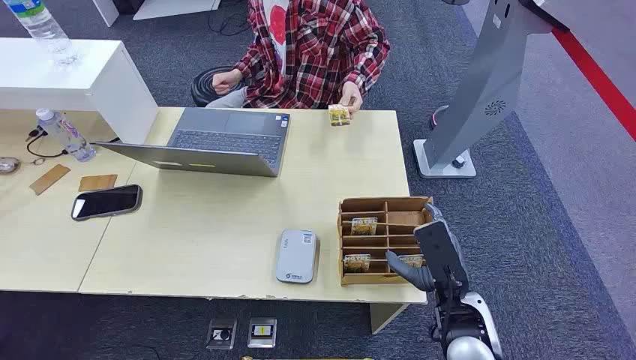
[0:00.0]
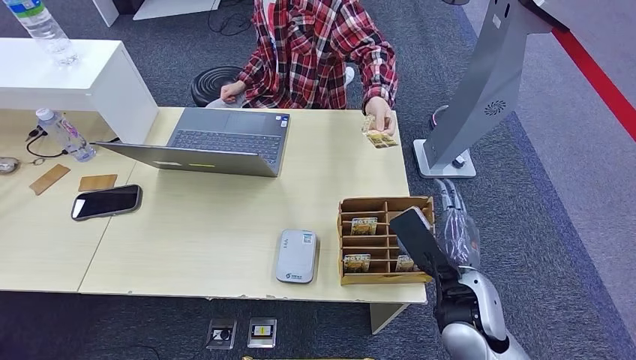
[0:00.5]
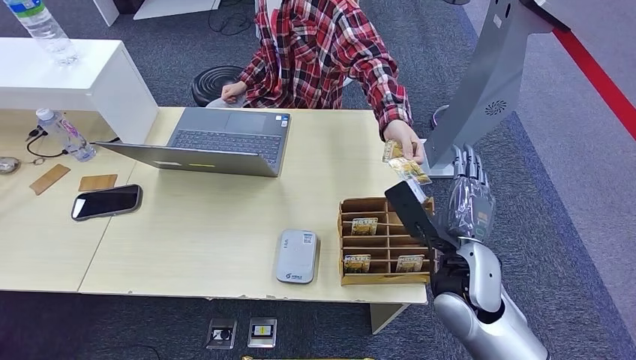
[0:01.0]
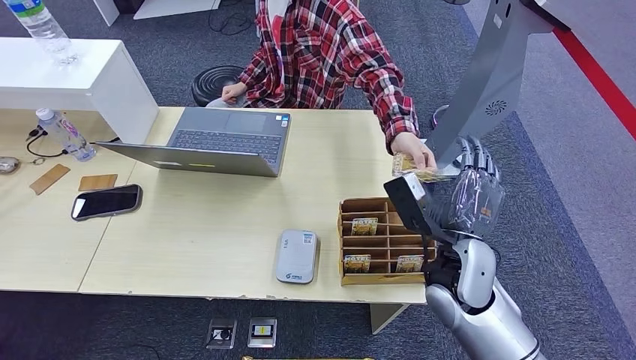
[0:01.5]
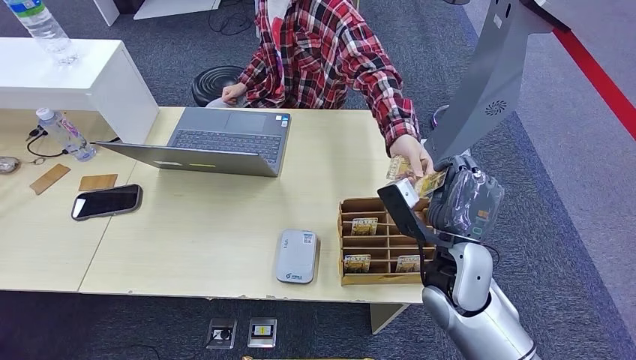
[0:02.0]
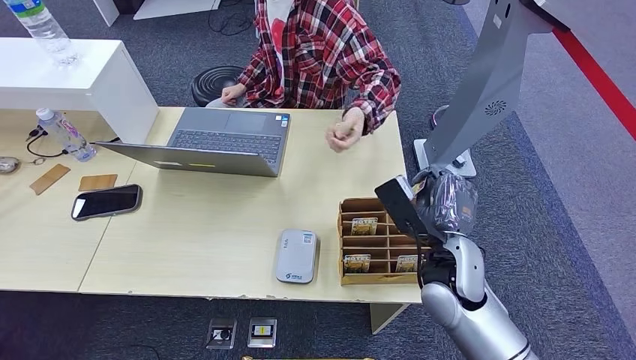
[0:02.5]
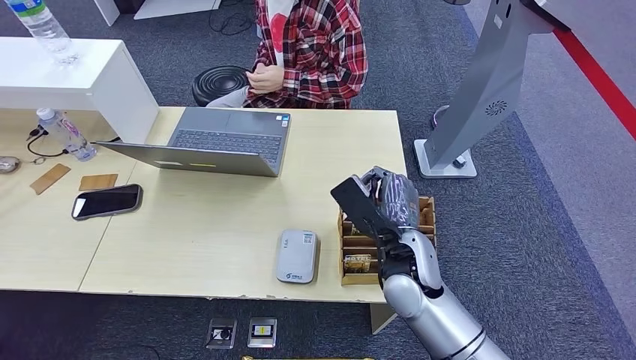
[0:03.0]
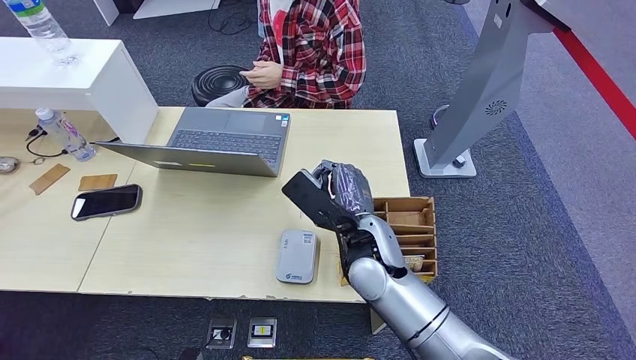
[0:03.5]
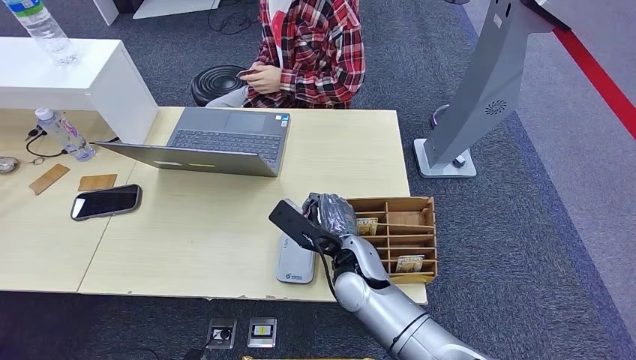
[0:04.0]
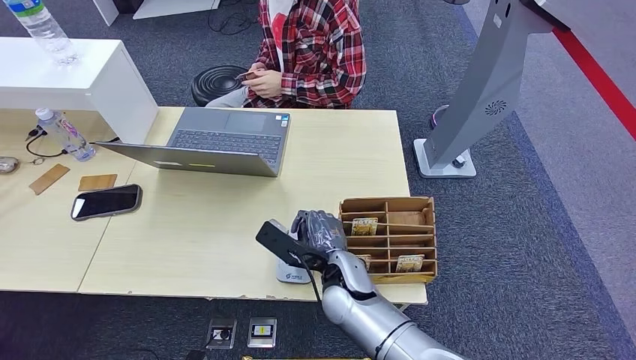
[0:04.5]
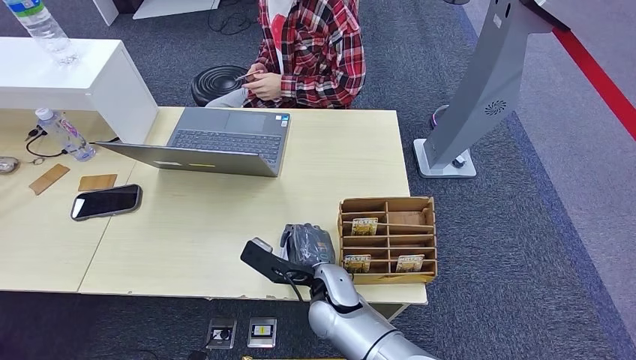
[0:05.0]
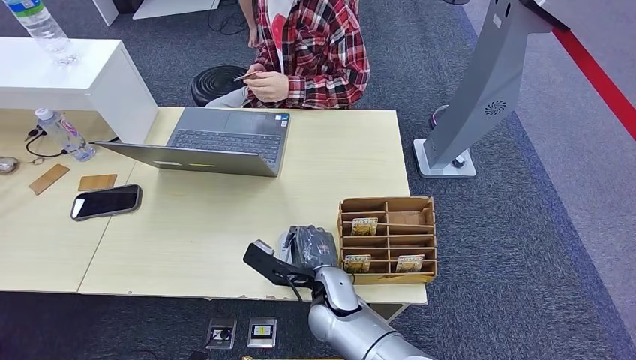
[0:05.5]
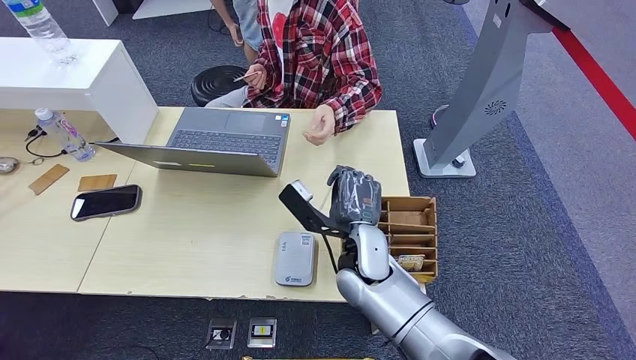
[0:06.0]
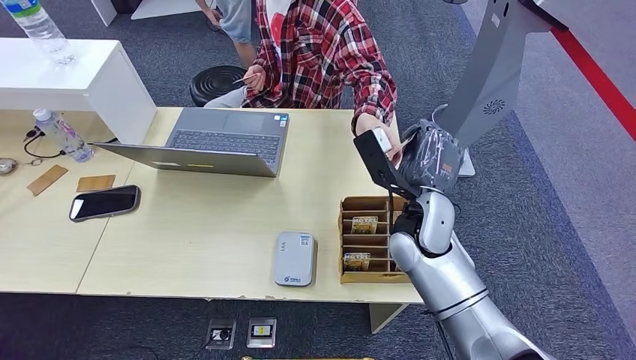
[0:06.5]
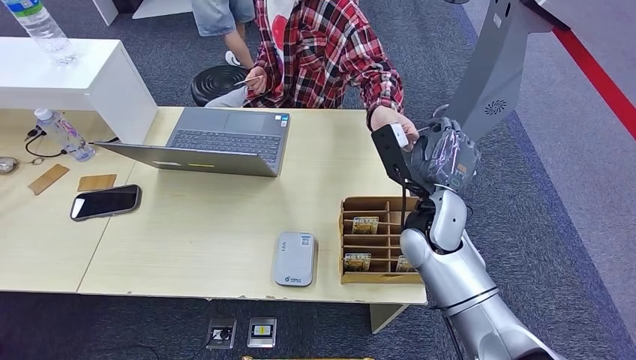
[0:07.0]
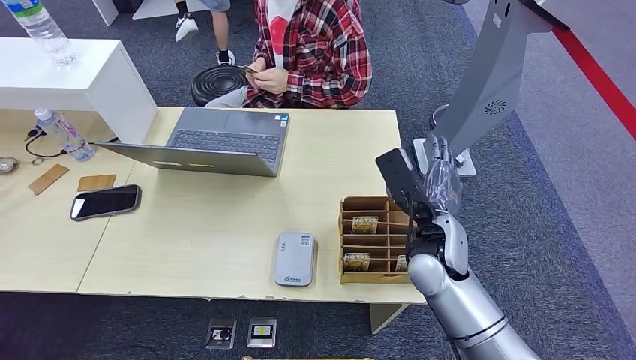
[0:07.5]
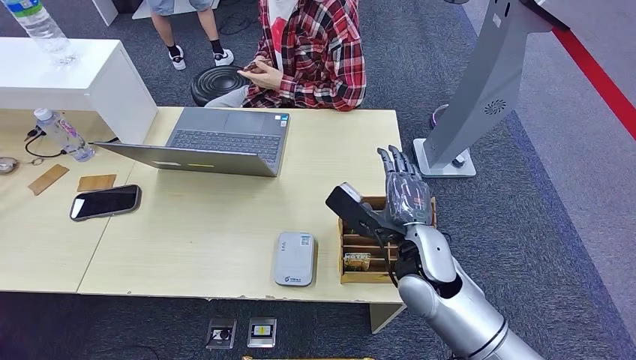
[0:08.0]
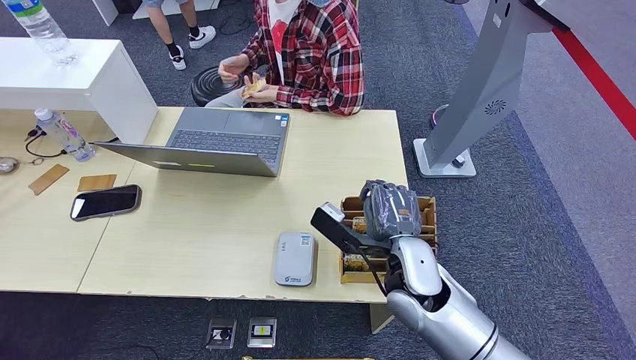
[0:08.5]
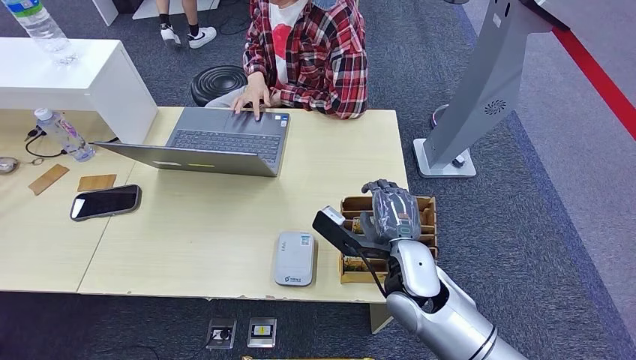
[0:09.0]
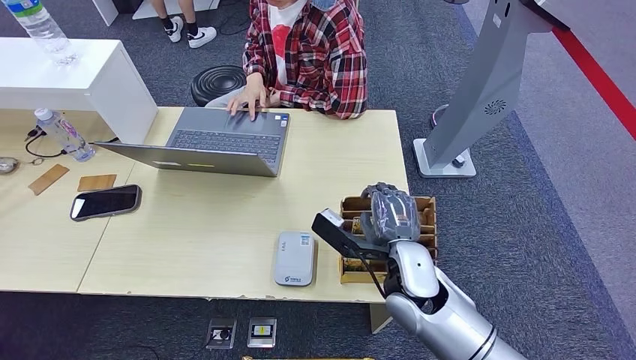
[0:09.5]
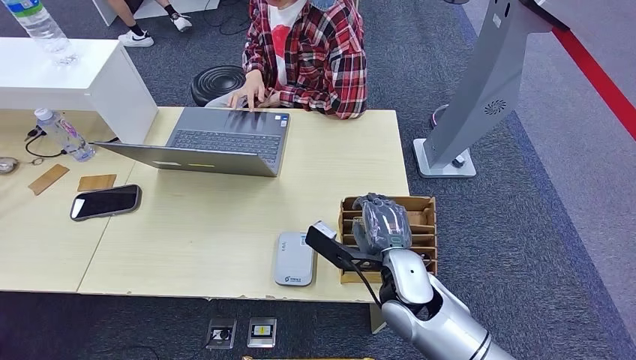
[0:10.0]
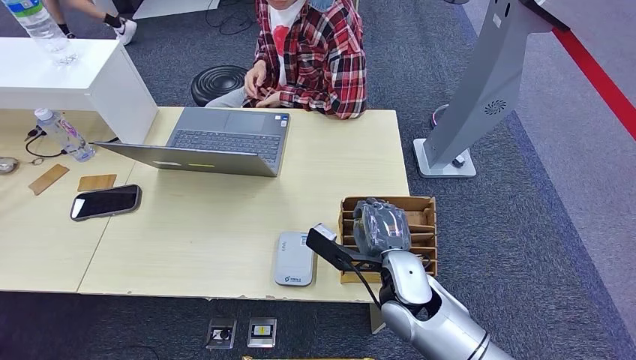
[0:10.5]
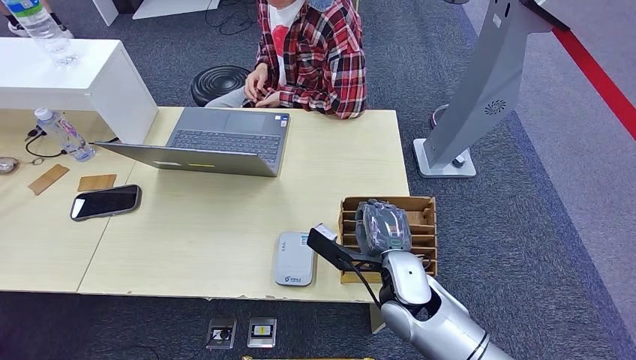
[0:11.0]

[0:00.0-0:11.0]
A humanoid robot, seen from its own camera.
Step, 0:00.0 to 0:02.5: Take the ID card from the person's hand.
Step, 0:03.0 to 0:05.0: Place the ID card on the card reader.
Step, 0:05.5 to 0:07.0: Hand the ID card to the person.
0:02.0 to 0:03.5: The right hand moves to the left, approximately 10 cm.
0:03.5 to 0:05.5: The right hand goes some 10 cm downward.
0:05.5 to 0:07.5: The right hand heads to the right and upward, covering roughly 15 cm.
0:07.5 to 0:09.0: The right hand is displaced backward by roughly 5 cm.
0:09.0 to 0:11.0: The hands make only small movements.

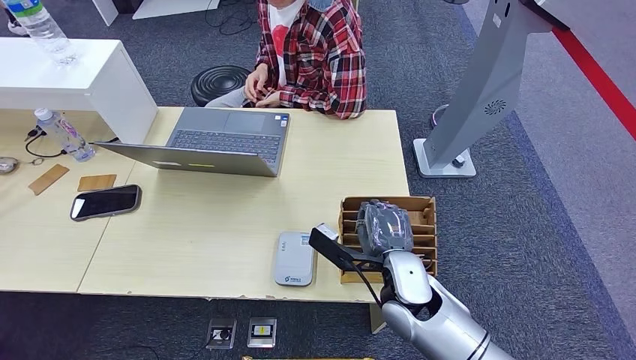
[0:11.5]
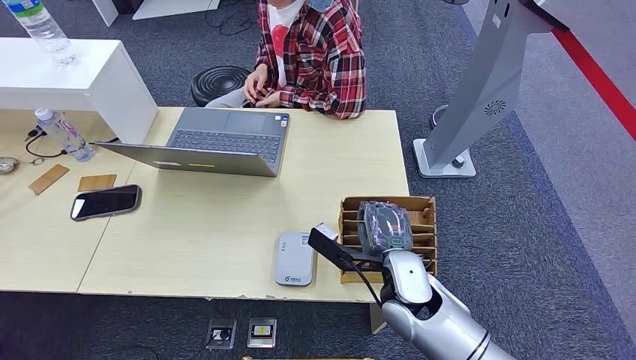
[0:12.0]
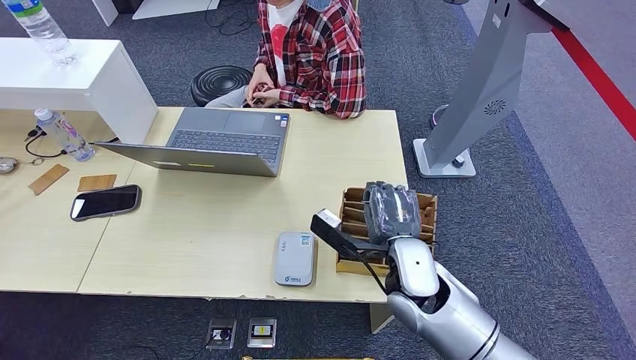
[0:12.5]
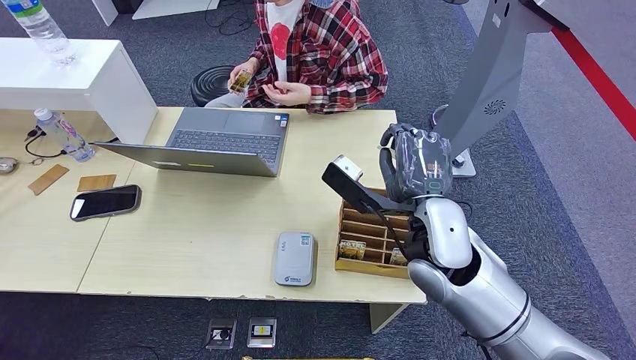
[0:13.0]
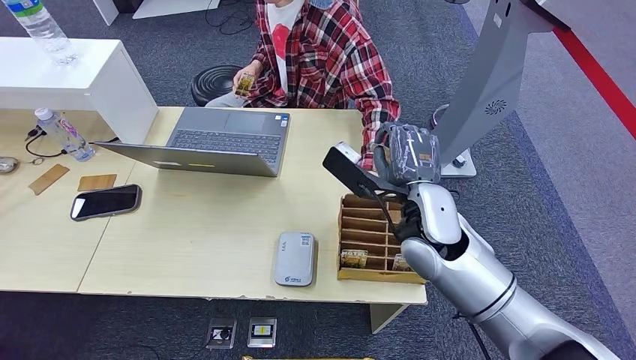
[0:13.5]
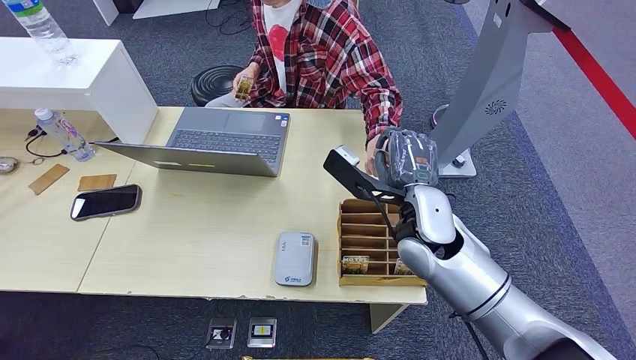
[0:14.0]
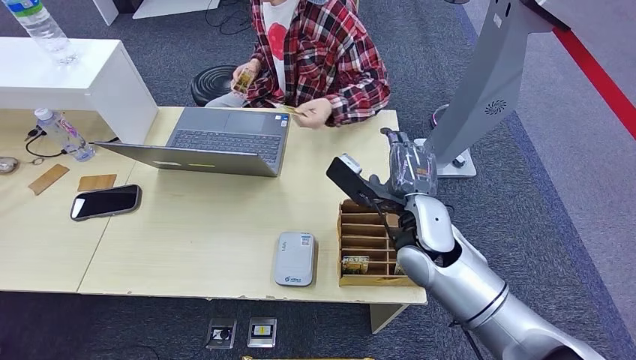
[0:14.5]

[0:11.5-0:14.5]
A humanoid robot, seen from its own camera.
Step, 0:13.5 to 0:14.5: Hand the room key to the person.
0:11.5 to 0:13.0: The right hand is displaced upward by some 10 cm.
0:13.0 to 0:14.5: The right hand ends up approximately 5 cm from where it was.
